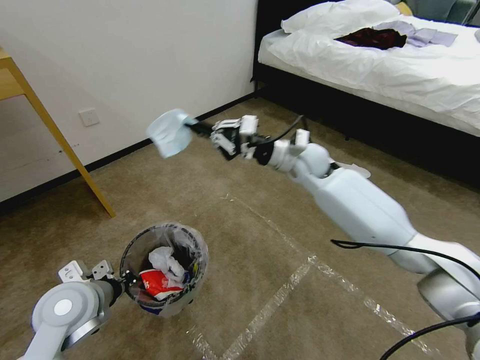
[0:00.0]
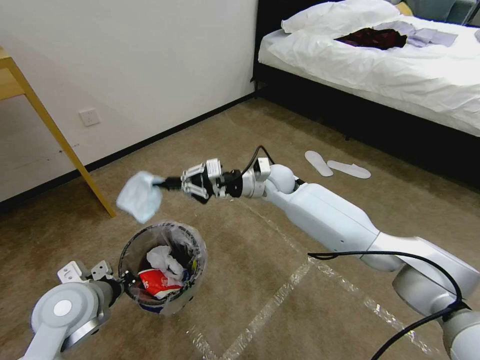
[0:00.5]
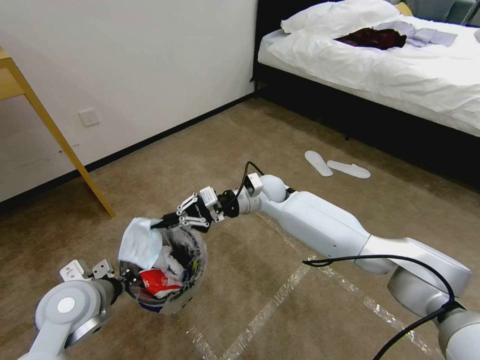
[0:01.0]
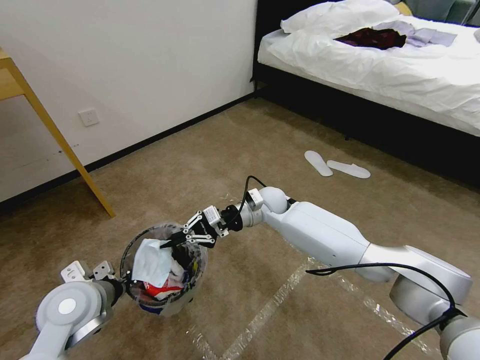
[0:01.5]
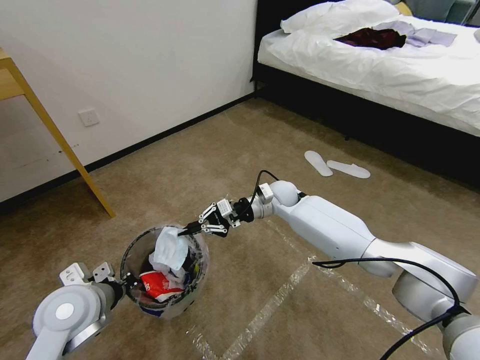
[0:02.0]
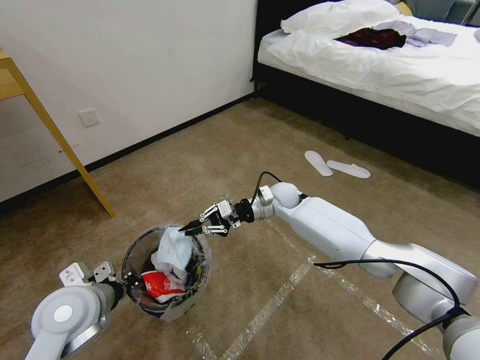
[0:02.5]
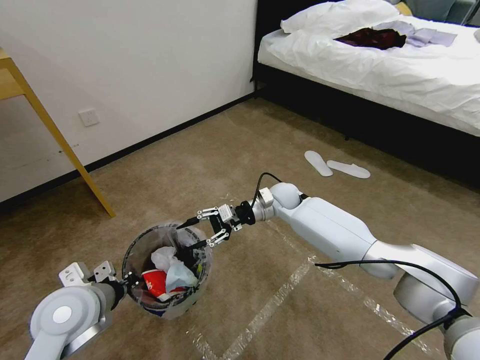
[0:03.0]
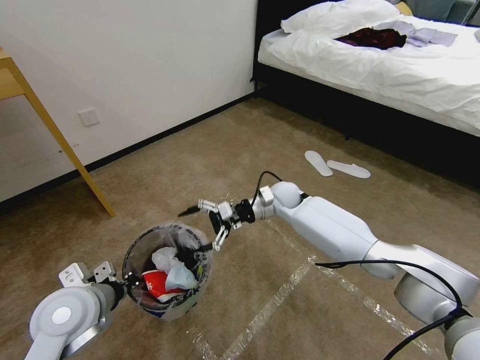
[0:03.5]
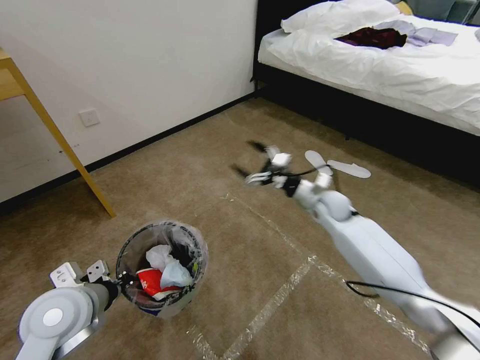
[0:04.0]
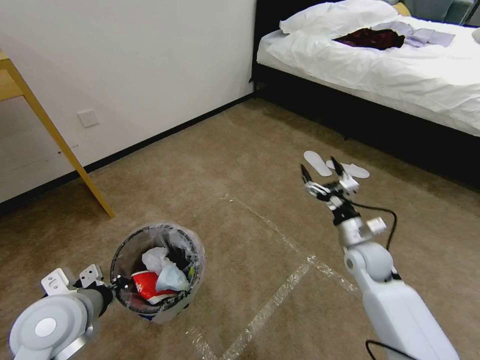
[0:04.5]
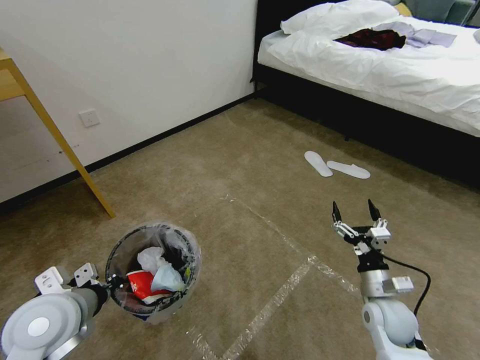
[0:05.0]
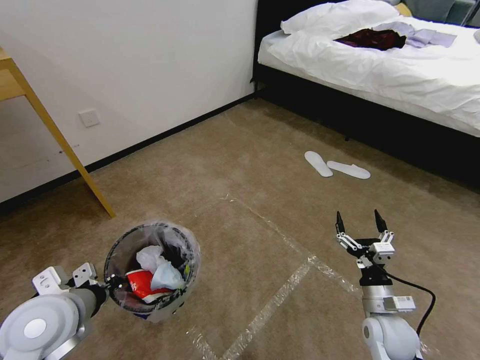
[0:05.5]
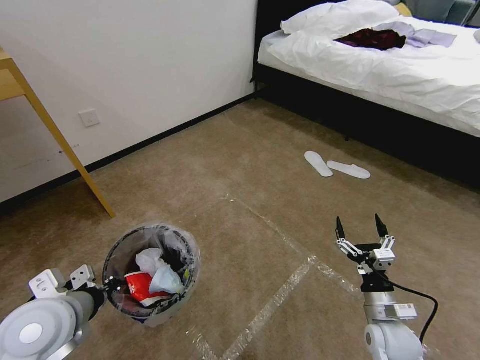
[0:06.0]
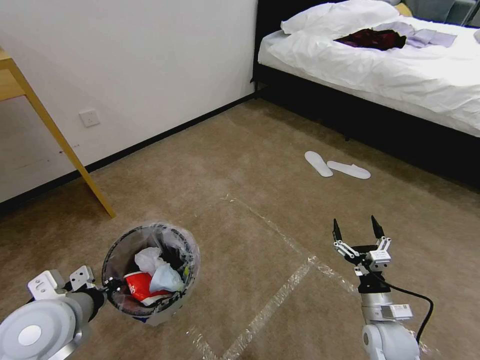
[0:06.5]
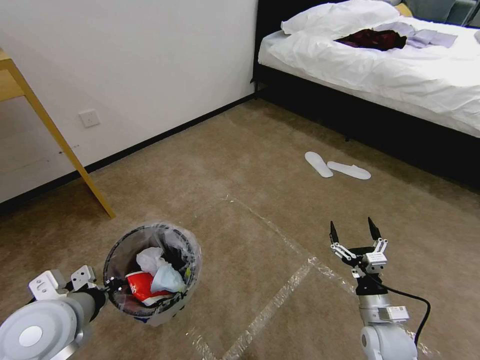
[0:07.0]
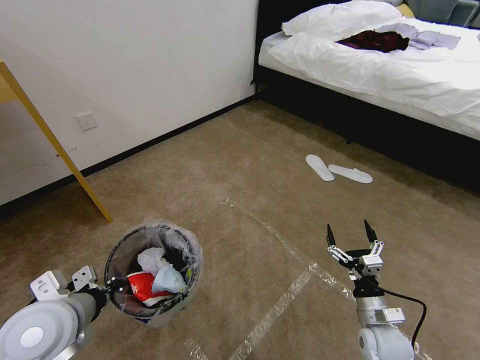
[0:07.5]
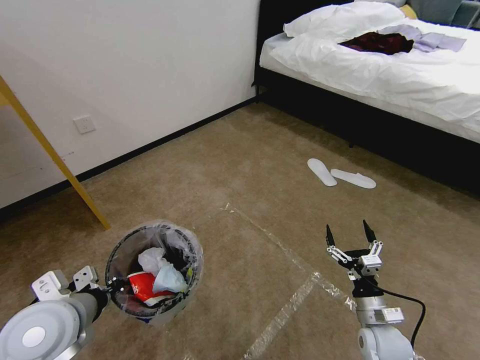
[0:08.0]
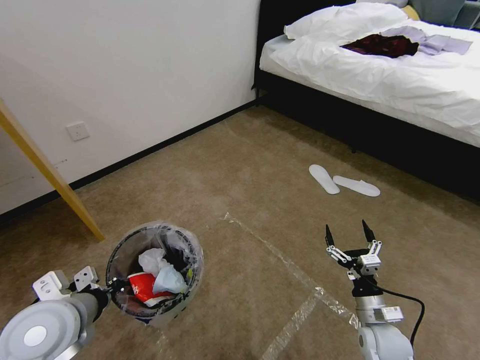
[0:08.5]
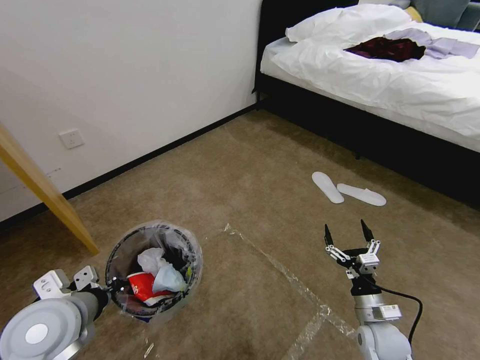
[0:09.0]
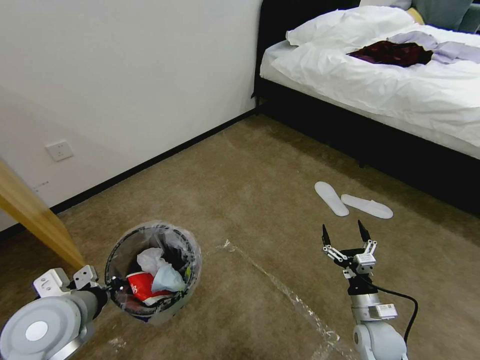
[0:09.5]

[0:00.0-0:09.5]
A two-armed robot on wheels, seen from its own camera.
Task of the whole recording: Pick up the trash bin and place the garbage on the floor into it.
0:00.0 to 0:02.0: The right gripper is displaced downward by about 15 cm.
0:02.0 to 0:04.0: The right gripper travels to the right by some 15 cm, and opens up.
0:04.0 to 0:05.5: The right gripper heads backward and downward, covering about 30 cm.
0:05.5 to 0:07.5: The grippers stay close to where they were, moving slightly.

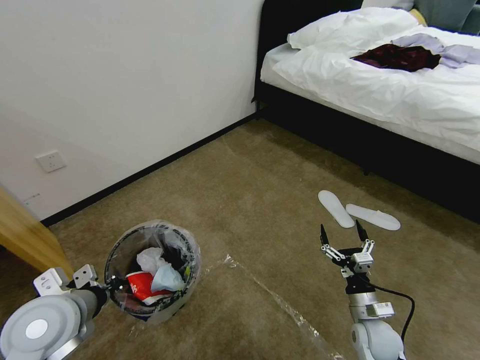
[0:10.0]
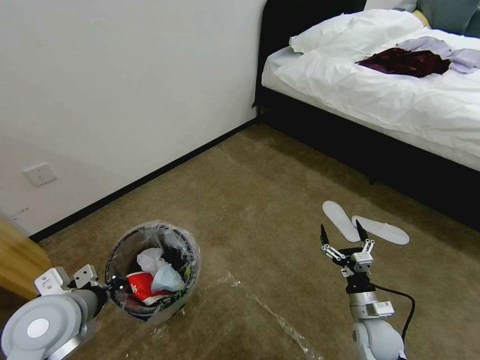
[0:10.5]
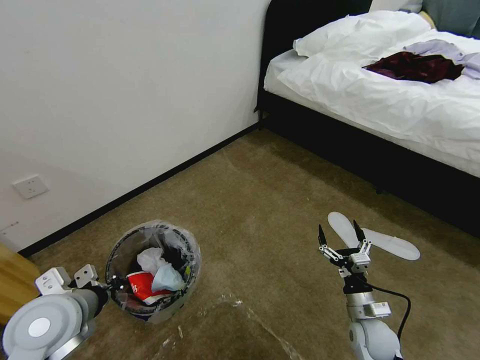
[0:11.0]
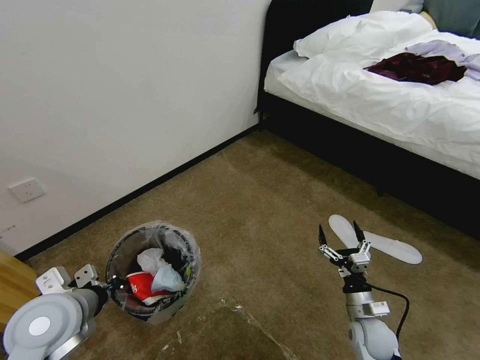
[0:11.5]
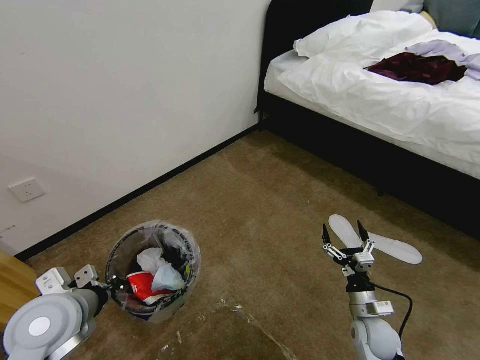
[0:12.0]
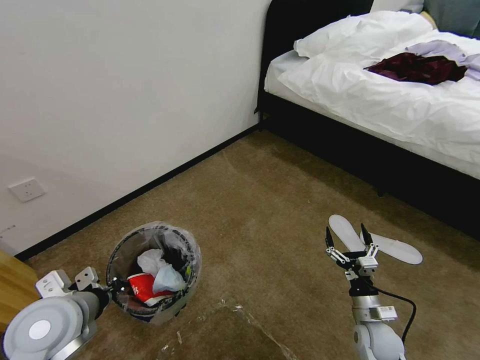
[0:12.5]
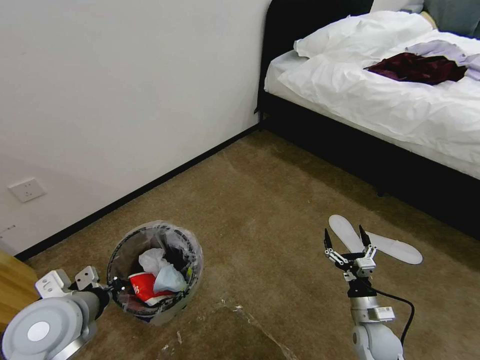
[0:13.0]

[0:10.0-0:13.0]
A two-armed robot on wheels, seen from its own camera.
Task of the whole recording: Pick up the trash bin and place the garbage on the floor into it.
0:11.5 to 0:13.0: The grippers move only a little.
